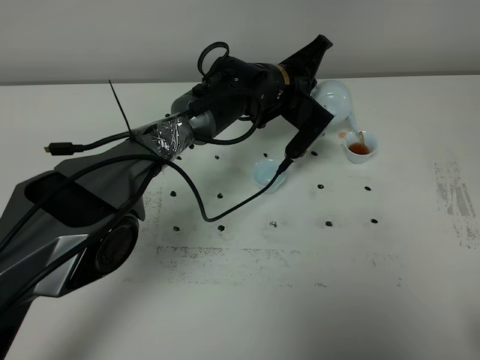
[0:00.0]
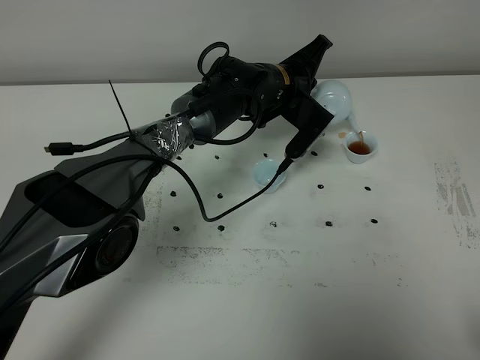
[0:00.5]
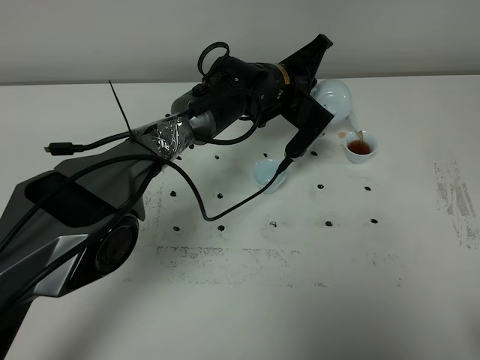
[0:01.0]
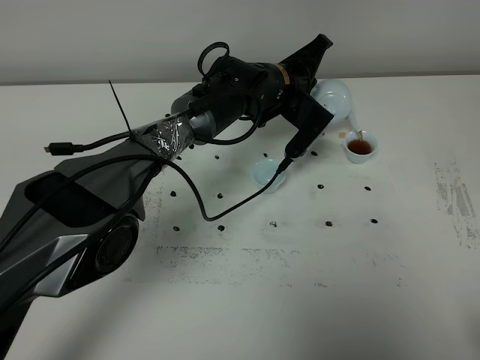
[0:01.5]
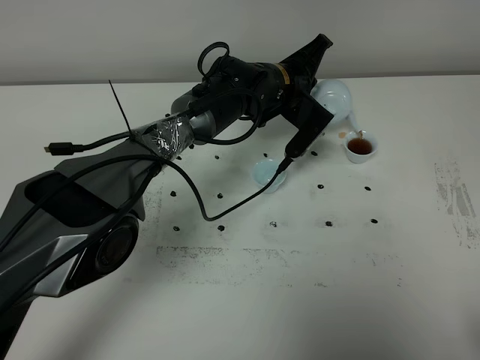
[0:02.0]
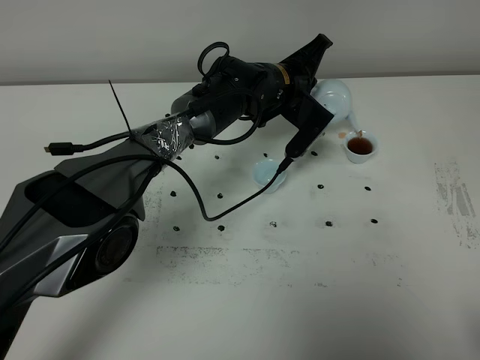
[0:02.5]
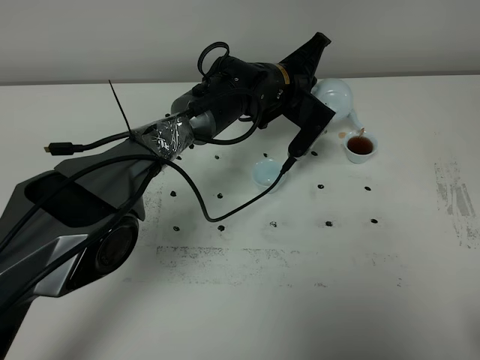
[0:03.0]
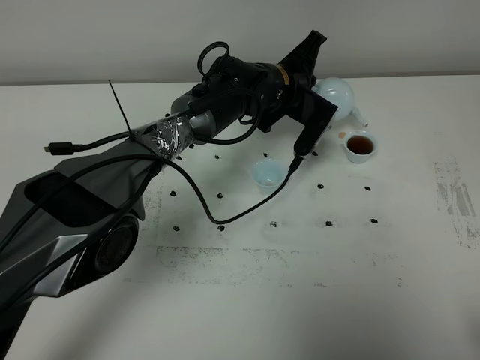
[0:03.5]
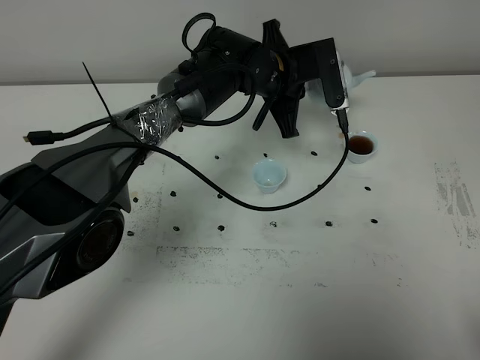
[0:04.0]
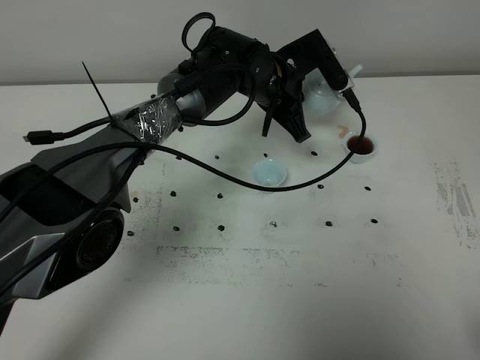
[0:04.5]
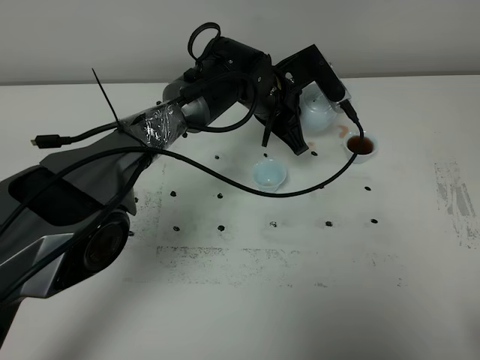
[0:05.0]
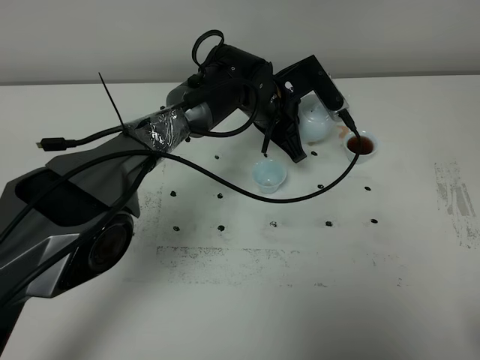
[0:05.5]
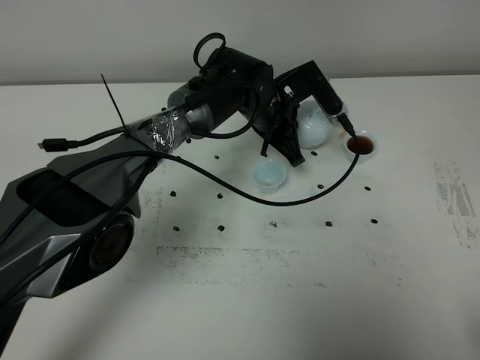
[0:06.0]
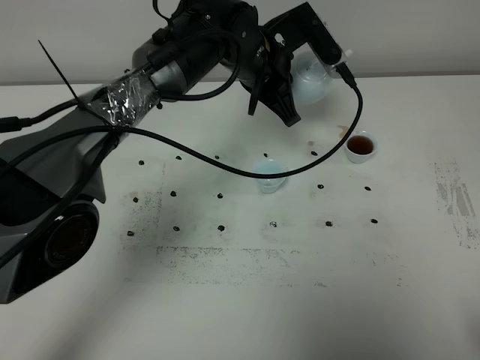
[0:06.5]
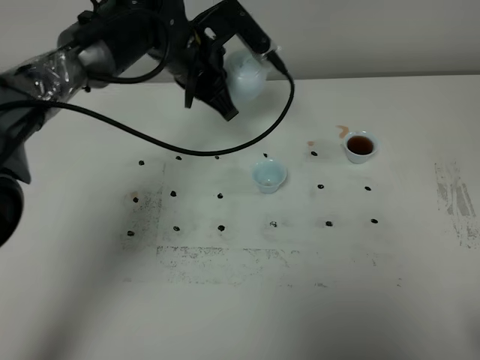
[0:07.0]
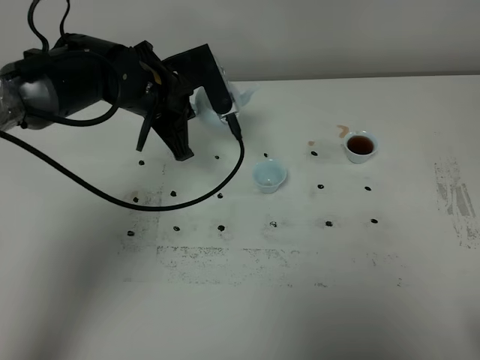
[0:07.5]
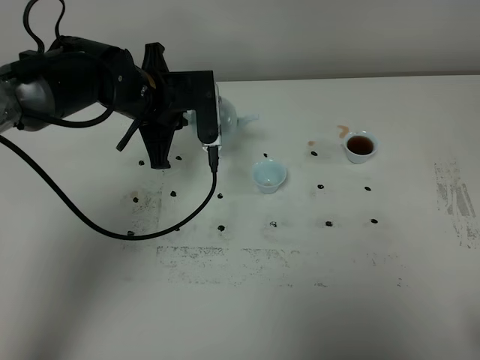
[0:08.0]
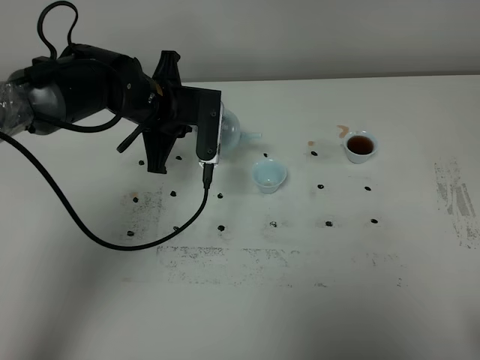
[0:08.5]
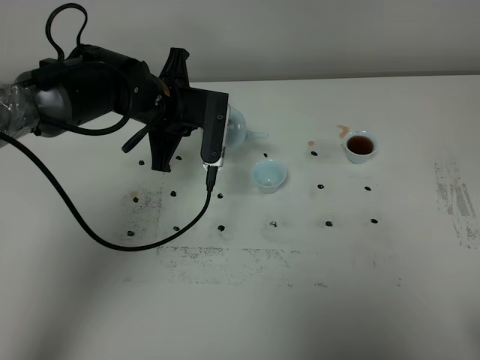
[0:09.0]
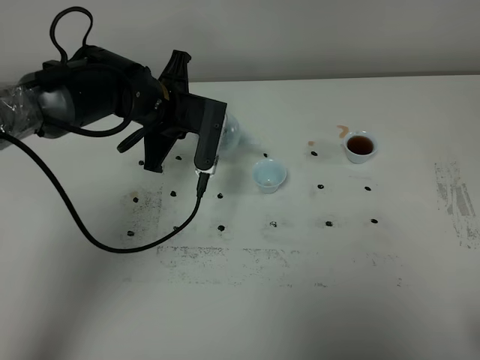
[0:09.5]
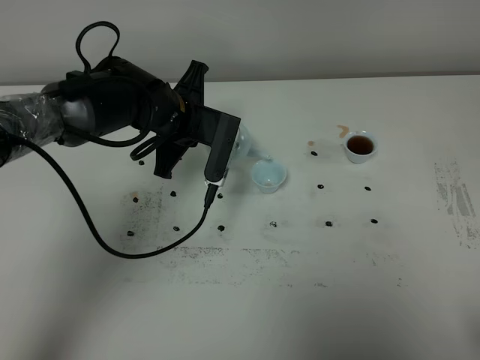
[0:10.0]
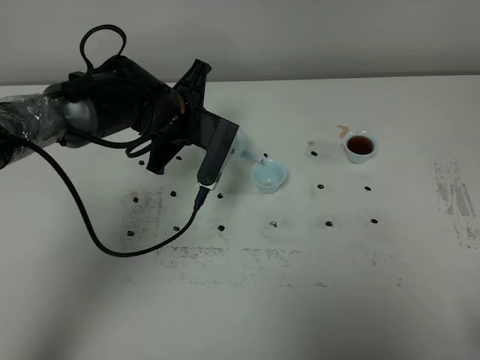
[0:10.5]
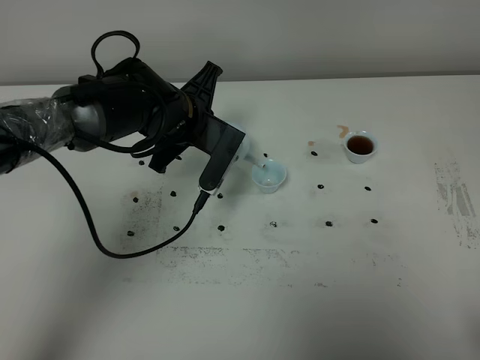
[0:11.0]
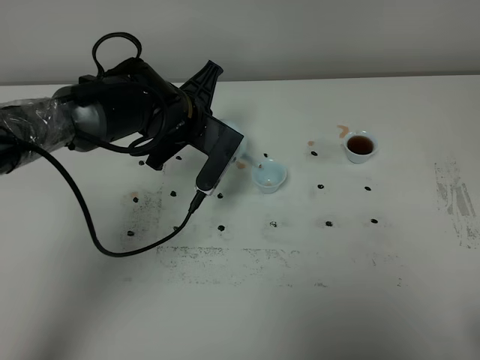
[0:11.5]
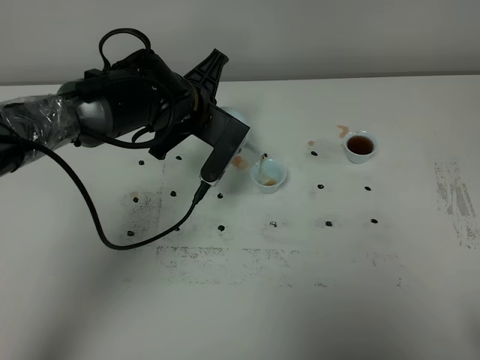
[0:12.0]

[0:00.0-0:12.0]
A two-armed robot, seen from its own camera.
Task of the whole recording: grasp the blue porcelain teapot and pour the tea into the two blue porcelain teacups one by one, put the blue porcelain teapot back in its original place.
Step, 0:00.0 to 0:03.5: Pour tea into the teacup with the left gripper.
0:00.0 to 0:02.0: Neither gripper changes place.
0:06.0 to 0:08.0: The left gripper is displaced to the left by about 15 cm.
0:10.0 to 0:12.0: The grippers move only a little.

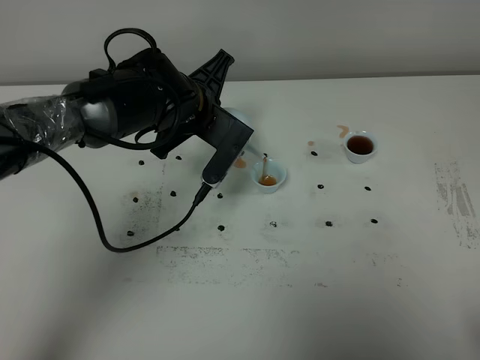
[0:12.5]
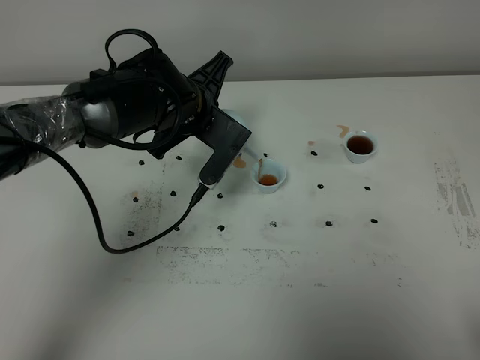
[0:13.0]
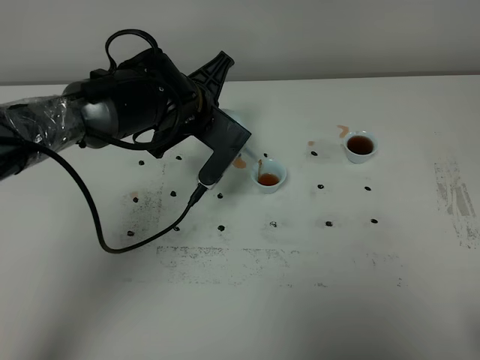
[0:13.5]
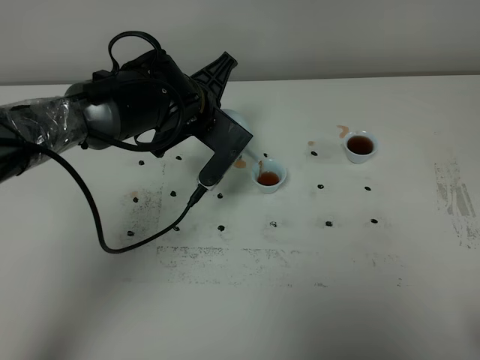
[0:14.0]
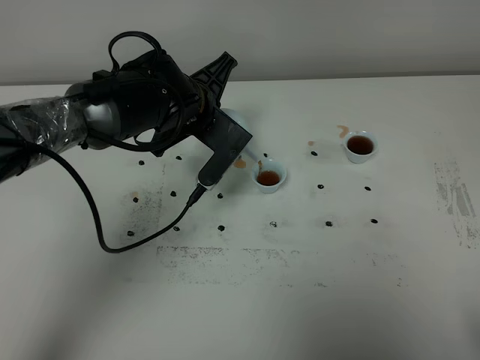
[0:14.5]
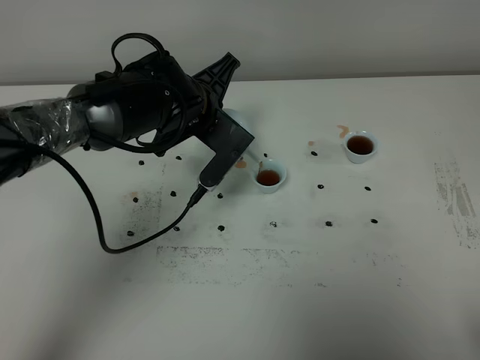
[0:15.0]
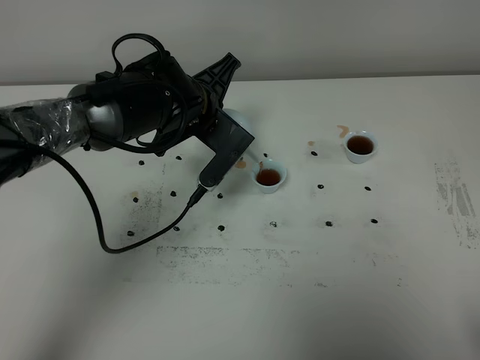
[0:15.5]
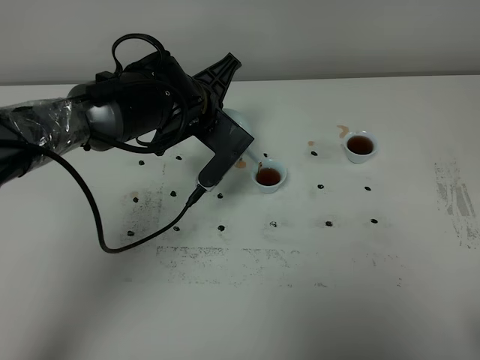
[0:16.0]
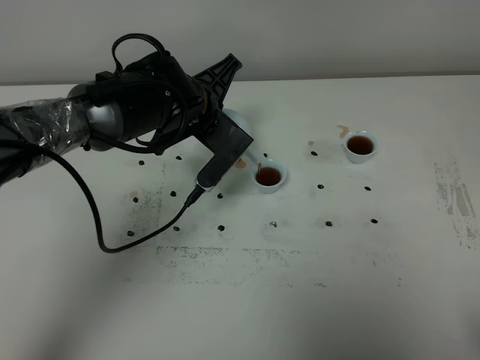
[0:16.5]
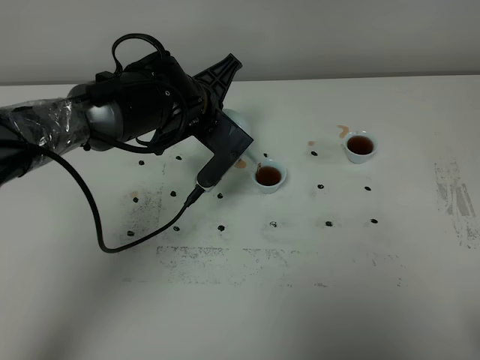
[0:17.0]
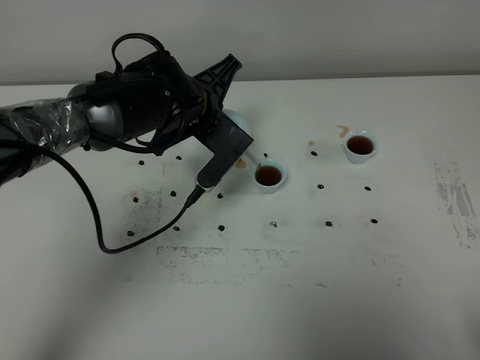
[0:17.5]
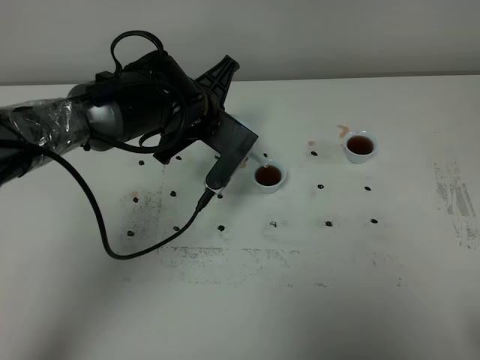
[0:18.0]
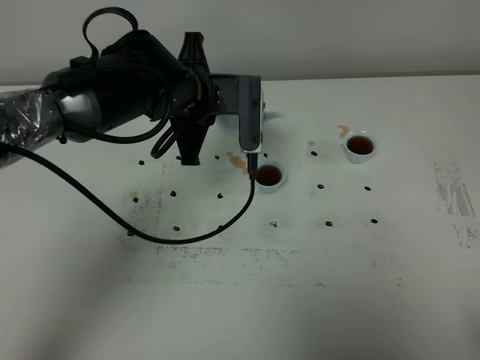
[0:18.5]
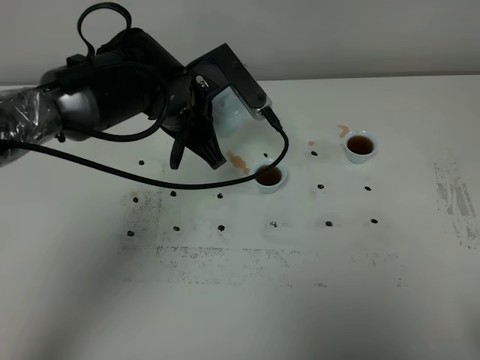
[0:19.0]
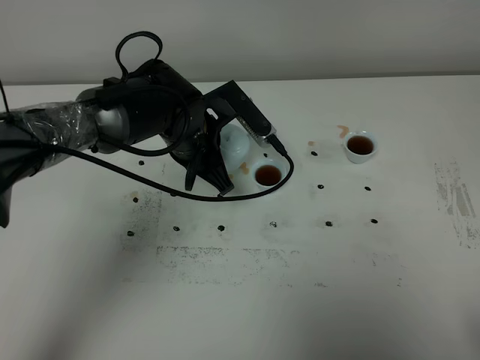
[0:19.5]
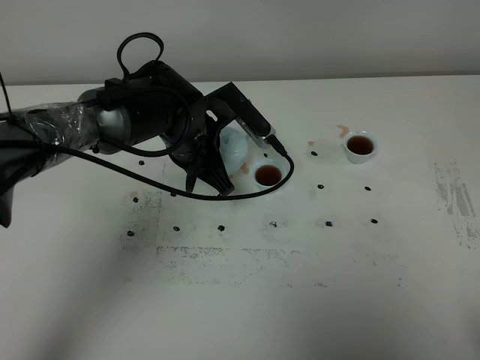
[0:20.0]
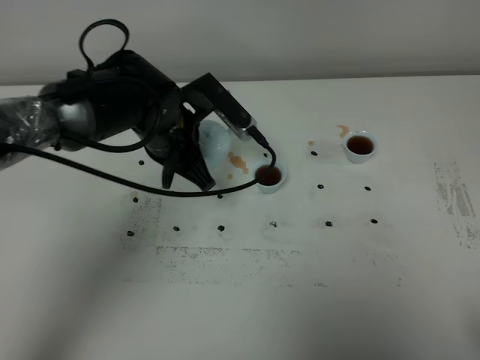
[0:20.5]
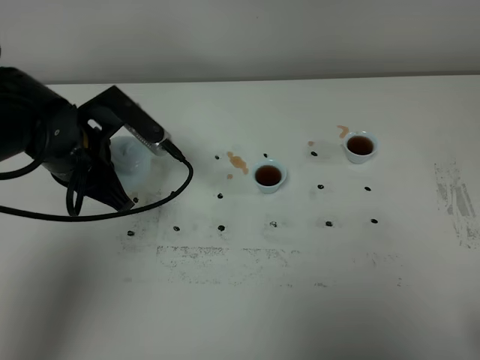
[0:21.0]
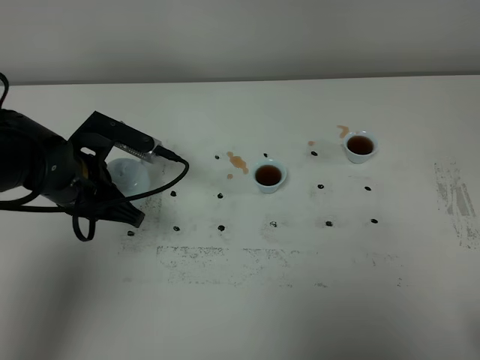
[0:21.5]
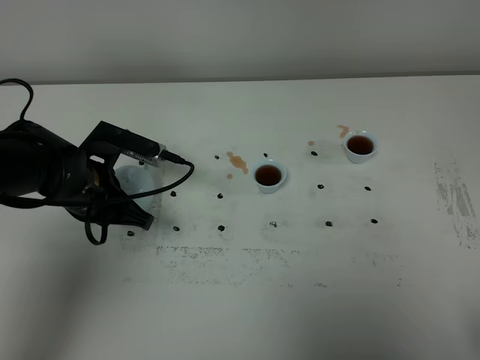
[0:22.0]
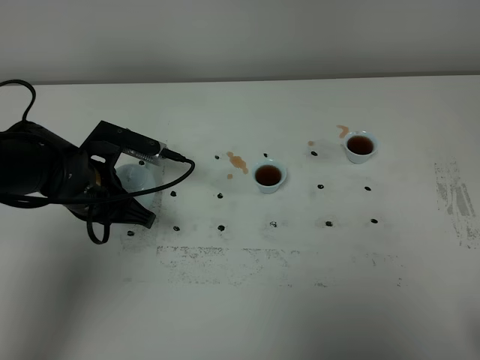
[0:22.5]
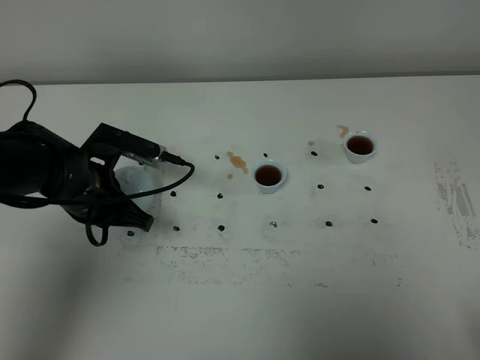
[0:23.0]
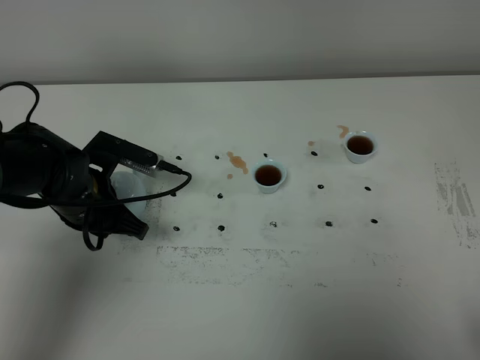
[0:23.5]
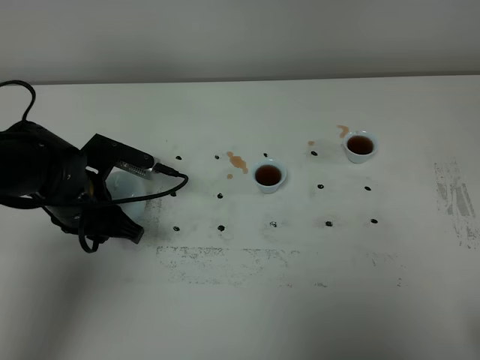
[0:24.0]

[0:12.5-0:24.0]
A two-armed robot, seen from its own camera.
Task of the whole recording: grasp the blue porcelain teapot and pour the tea into the two blue porcelain teacups one by one, put the blue porcelain teapot back in its original place.
Step, 0:12.5 to 0:18.0: Pour tea into the teacup with the left gripper.
0:12.5 to 0:14.5: Both grippers stay put.
0:14.5 to 0:16.5: The two grippers keep their place.
0:18.5 to 0:20.0: The left gripper moves downward, some 5 cm.
0:20.0 to 0:22.0: The left gripper travels to the left and backward by roughly 15 cm.
0:22.0 to 0:24.0: The left gripper opens.

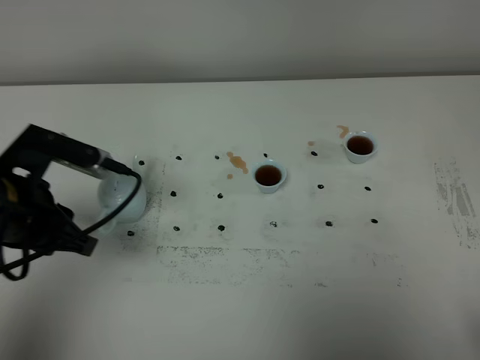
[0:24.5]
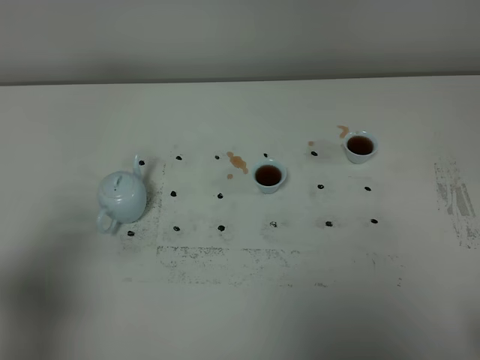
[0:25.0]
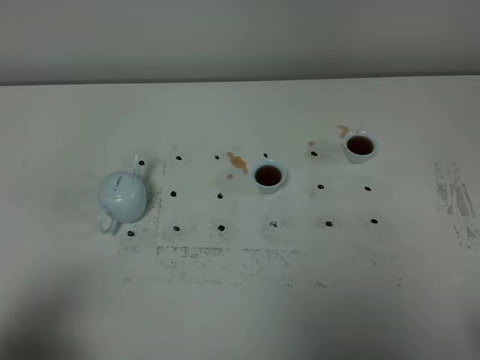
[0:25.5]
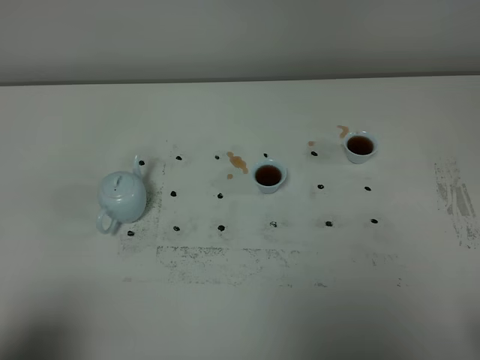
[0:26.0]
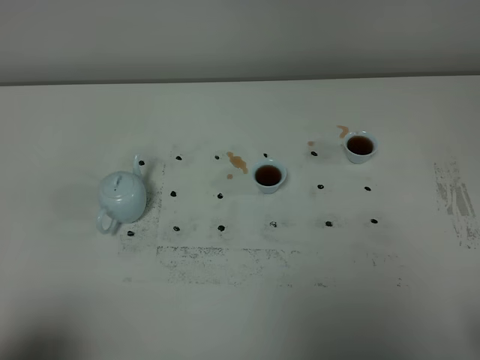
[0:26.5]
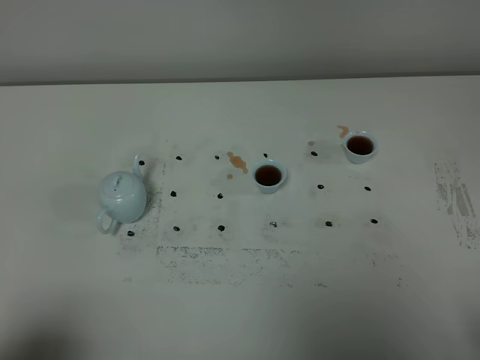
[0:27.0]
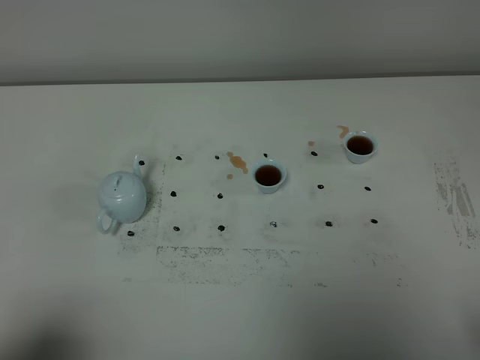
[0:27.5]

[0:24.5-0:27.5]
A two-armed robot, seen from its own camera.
Task of the whole recording: grasp the blue porcelain teapot and pour the tea into the two blue porcelain teacups one by one, put the blue porcelain teapot back in its original place.
0:24.5 to 0:26.0: The left gripper travels backward by roughly 25 cm.
